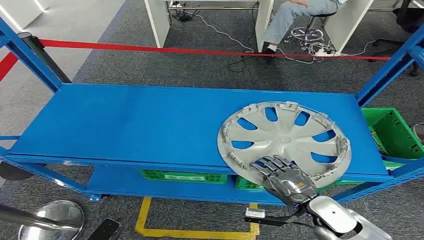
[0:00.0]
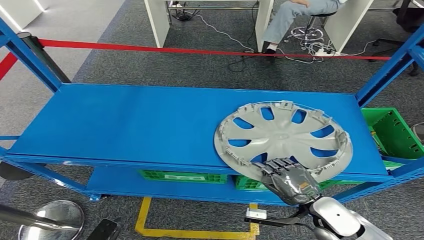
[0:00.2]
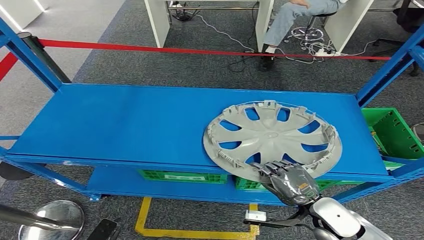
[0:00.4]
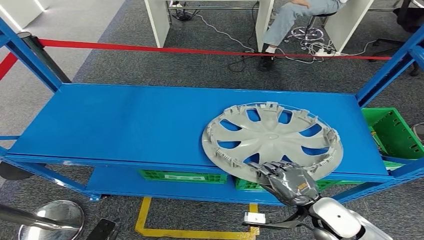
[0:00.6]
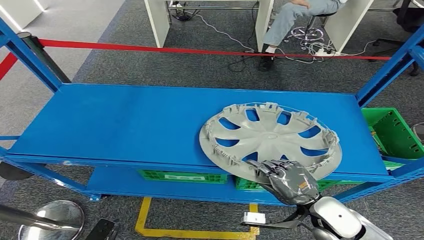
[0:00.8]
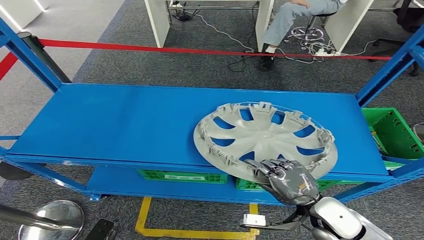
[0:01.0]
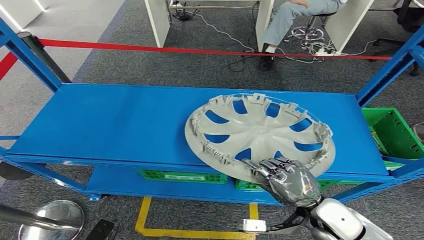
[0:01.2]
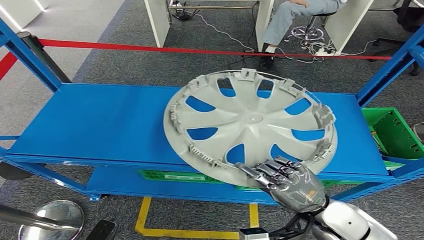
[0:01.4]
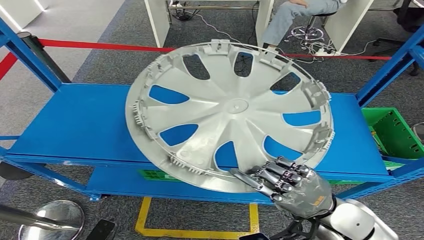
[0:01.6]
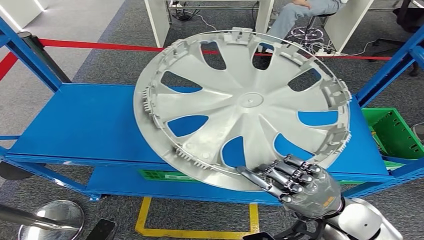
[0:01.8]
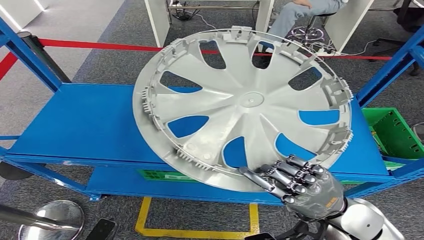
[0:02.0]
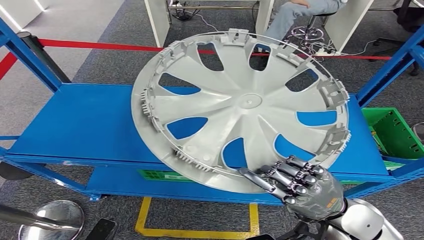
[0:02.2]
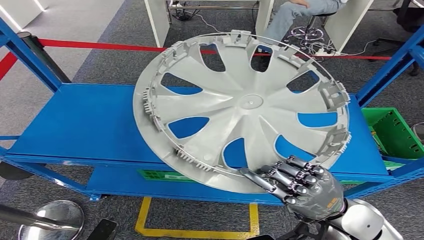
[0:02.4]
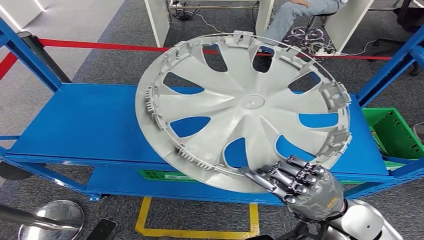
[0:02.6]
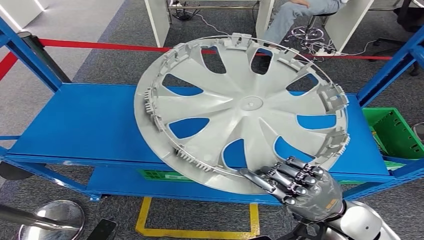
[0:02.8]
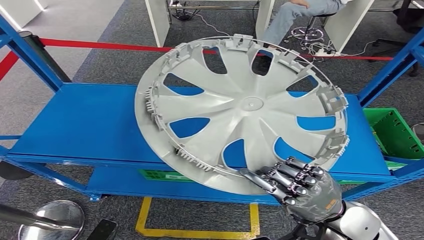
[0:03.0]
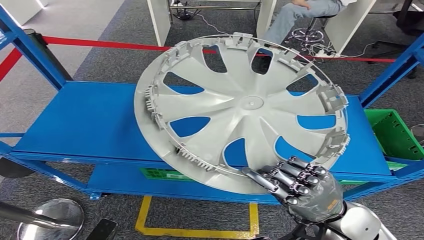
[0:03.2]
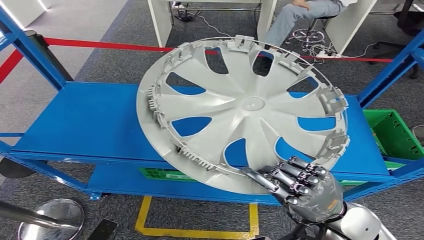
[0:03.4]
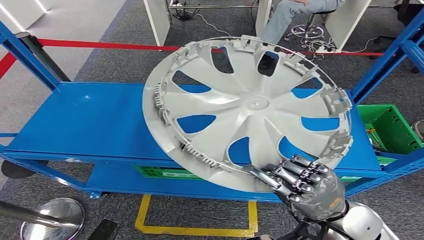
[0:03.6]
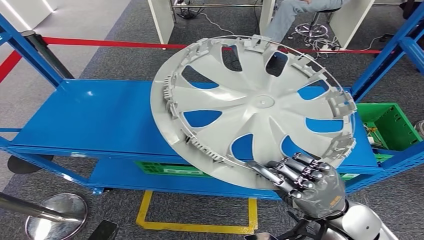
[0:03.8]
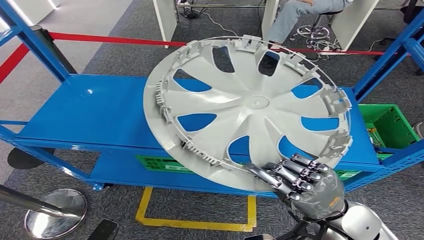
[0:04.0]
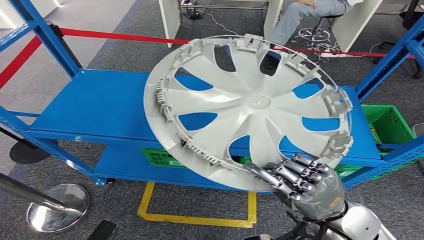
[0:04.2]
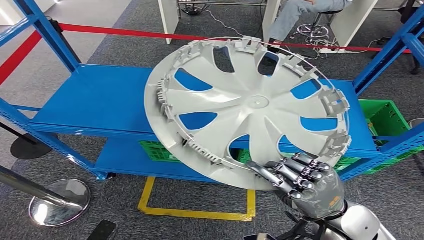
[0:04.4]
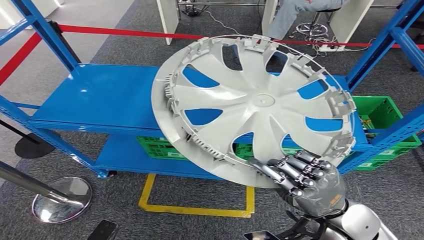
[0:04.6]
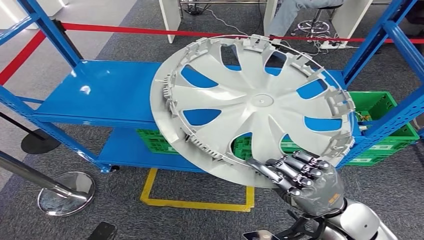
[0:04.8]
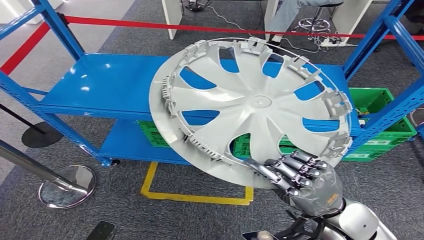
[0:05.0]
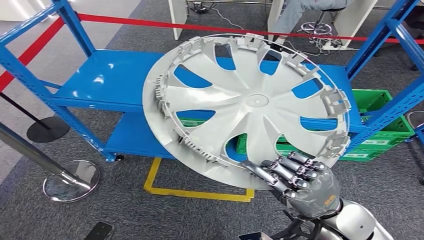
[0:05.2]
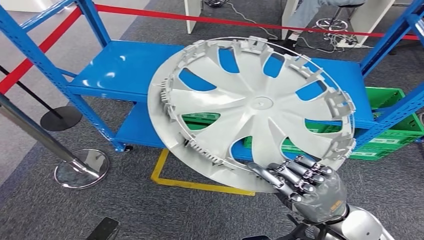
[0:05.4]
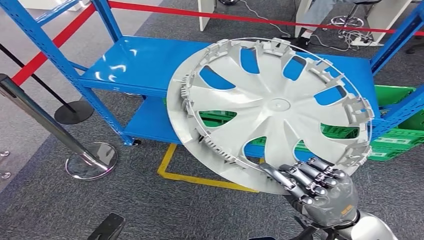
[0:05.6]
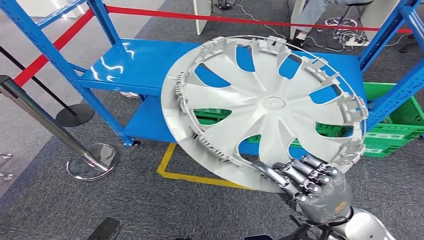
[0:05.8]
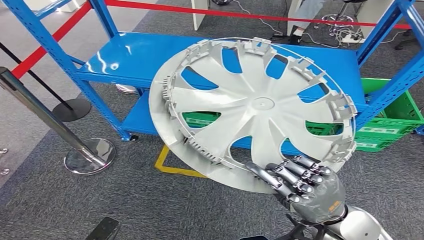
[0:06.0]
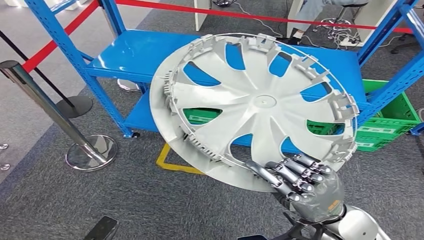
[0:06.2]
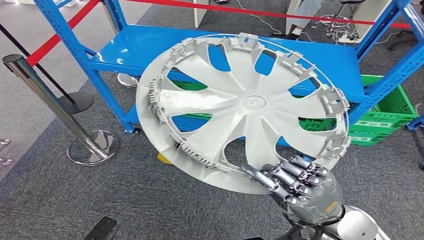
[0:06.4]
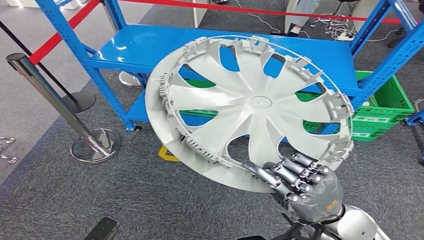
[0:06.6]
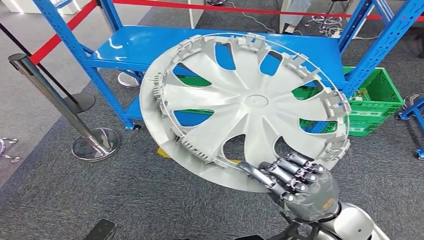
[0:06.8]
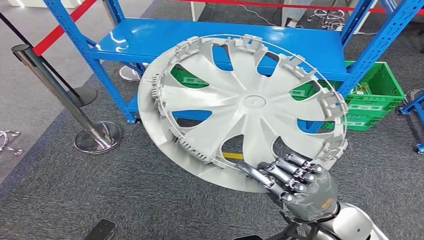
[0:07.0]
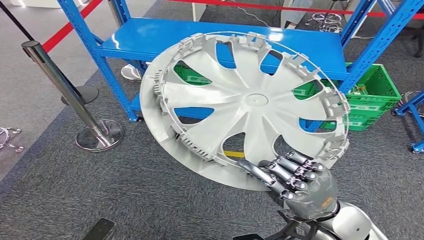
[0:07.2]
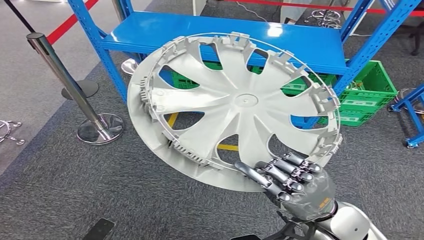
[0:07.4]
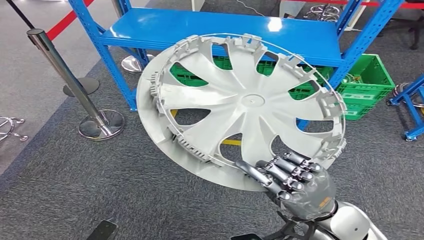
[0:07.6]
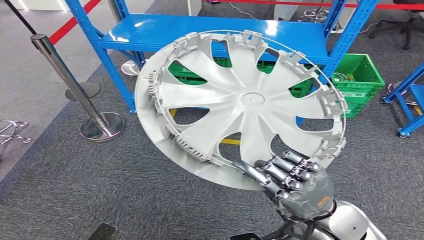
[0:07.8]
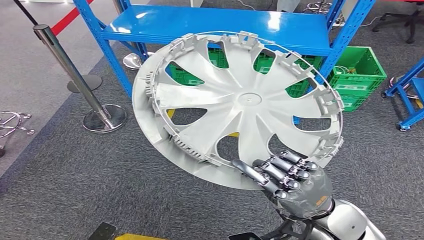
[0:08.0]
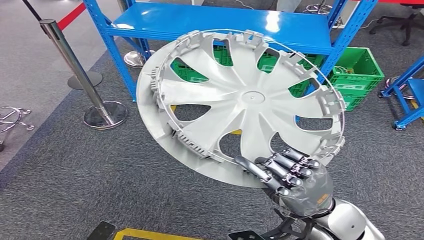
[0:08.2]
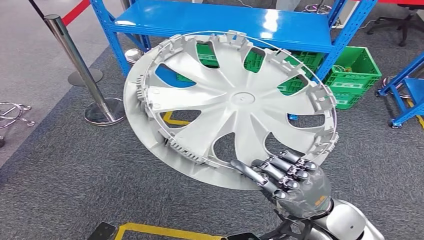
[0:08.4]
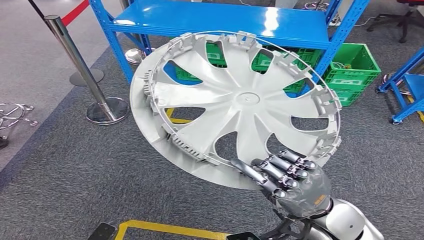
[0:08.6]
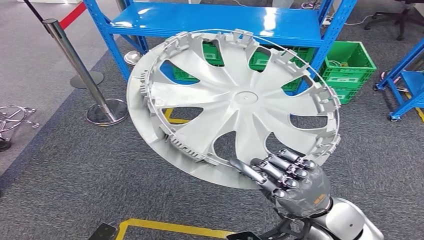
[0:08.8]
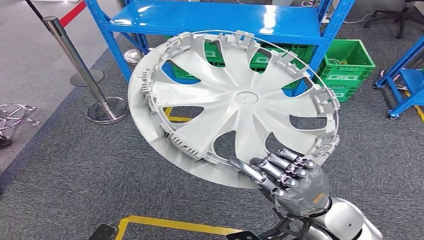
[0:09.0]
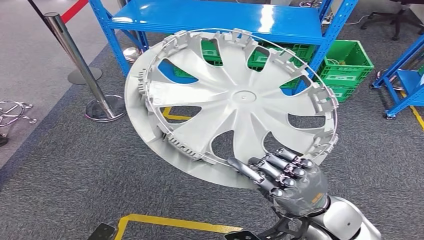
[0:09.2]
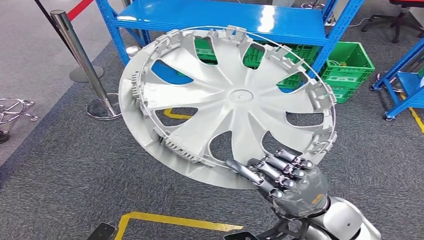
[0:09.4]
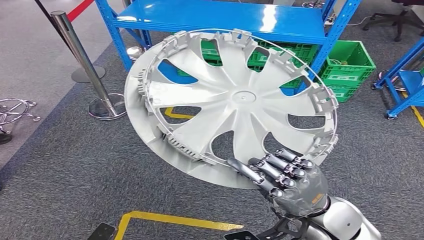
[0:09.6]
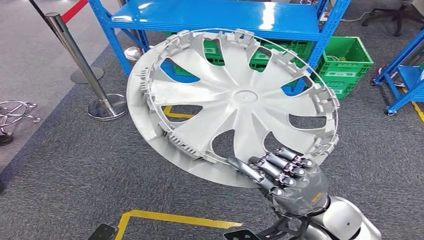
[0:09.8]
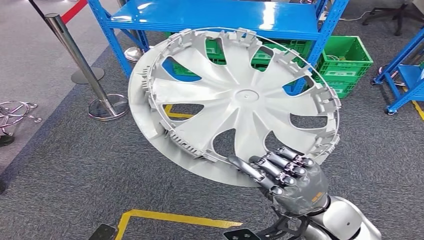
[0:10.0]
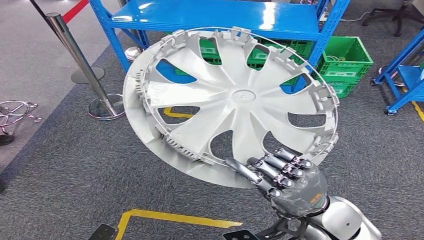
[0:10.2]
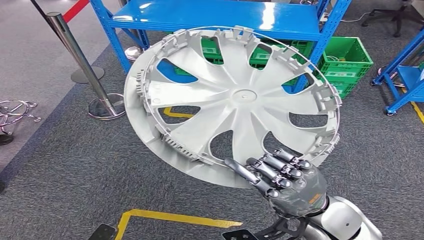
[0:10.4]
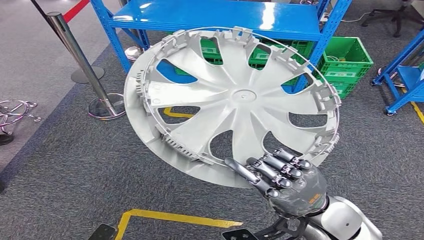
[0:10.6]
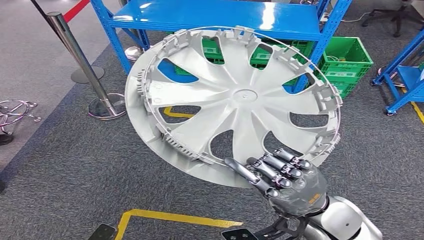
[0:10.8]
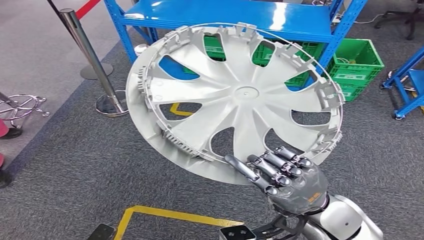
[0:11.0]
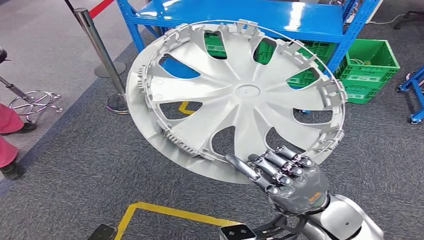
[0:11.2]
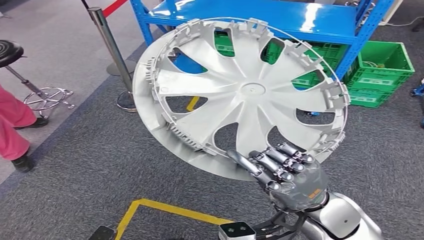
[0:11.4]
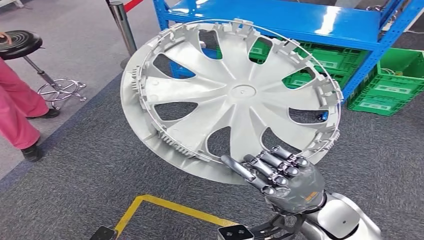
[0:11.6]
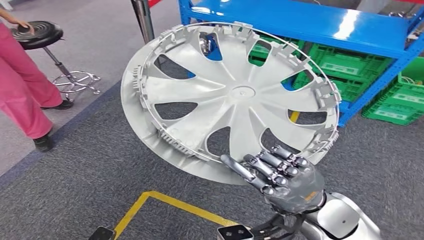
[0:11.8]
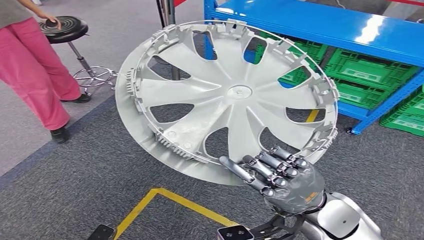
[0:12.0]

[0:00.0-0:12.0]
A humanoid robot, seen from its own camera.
Step, 0:00.0 to 0:02.2: Pick up the small component from the shelf.

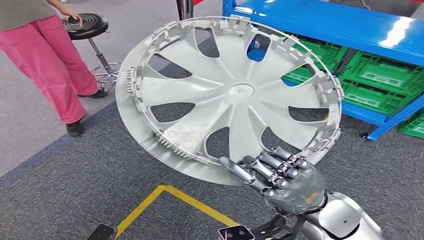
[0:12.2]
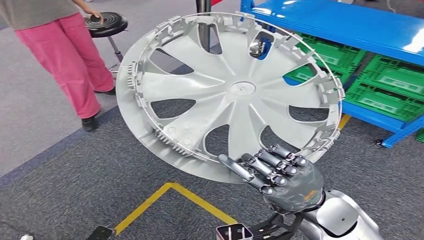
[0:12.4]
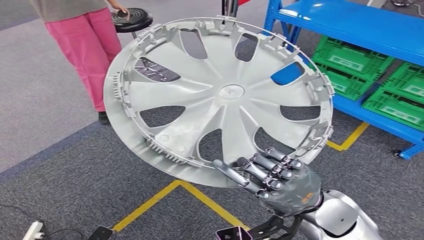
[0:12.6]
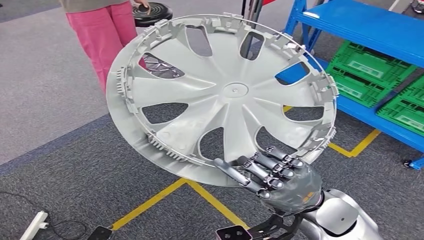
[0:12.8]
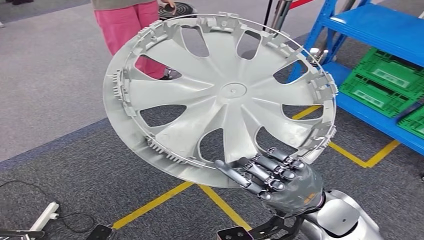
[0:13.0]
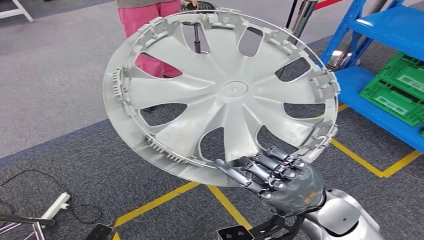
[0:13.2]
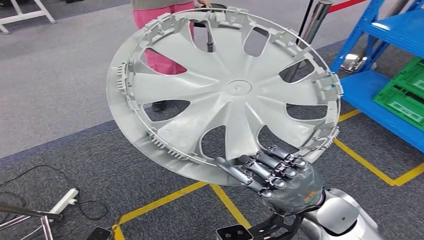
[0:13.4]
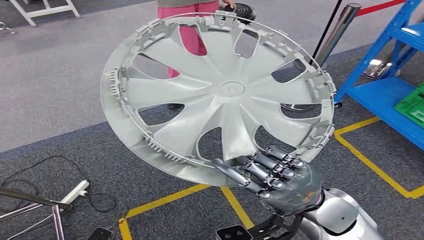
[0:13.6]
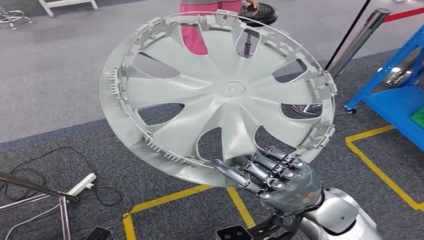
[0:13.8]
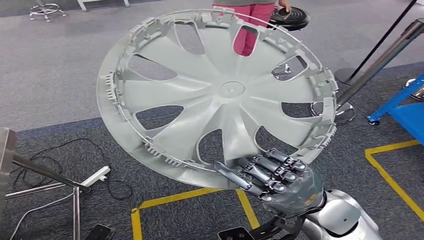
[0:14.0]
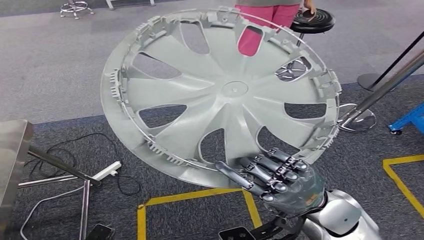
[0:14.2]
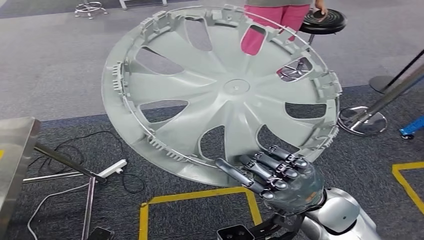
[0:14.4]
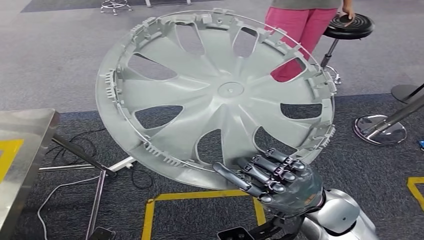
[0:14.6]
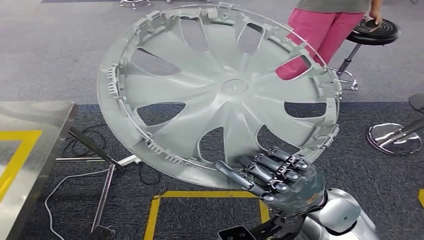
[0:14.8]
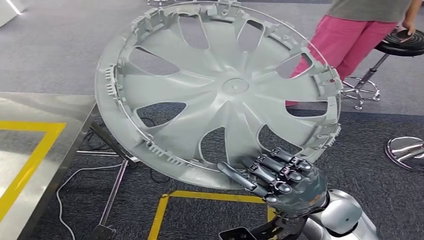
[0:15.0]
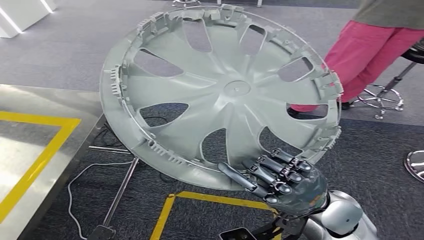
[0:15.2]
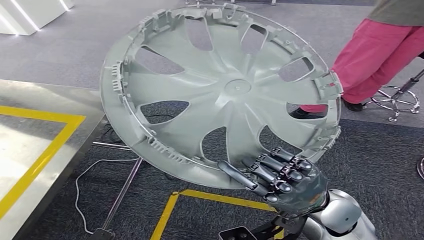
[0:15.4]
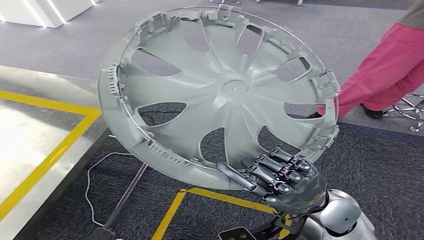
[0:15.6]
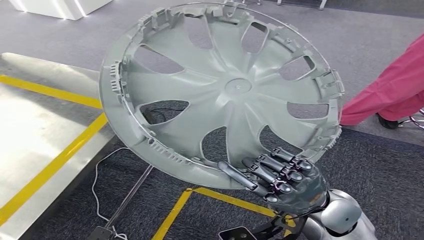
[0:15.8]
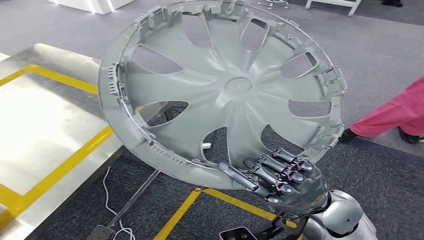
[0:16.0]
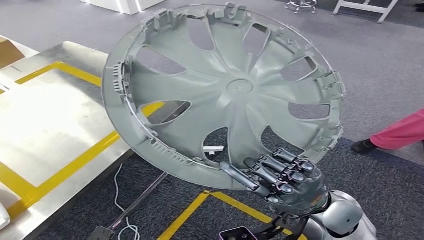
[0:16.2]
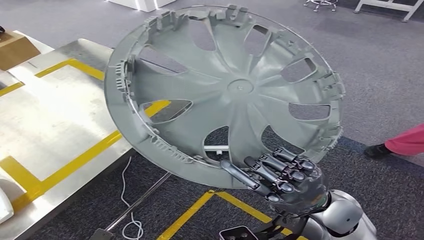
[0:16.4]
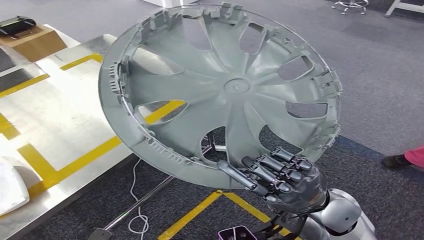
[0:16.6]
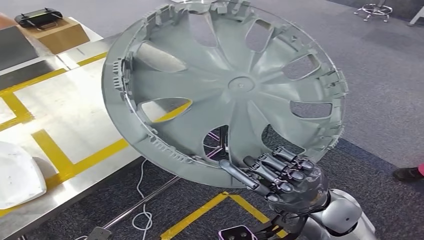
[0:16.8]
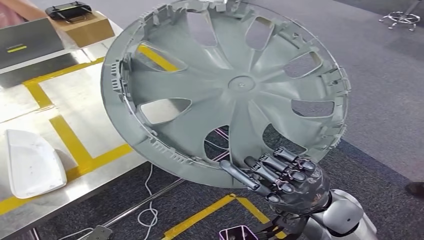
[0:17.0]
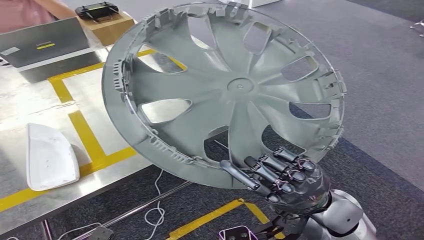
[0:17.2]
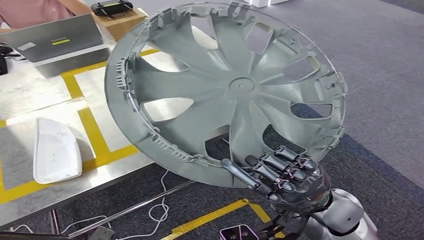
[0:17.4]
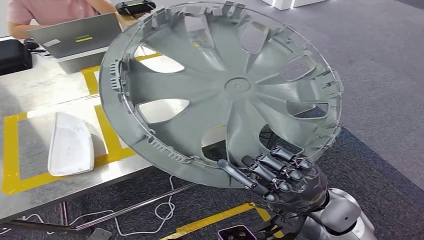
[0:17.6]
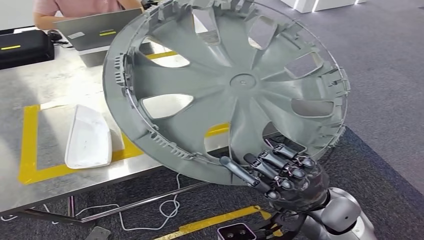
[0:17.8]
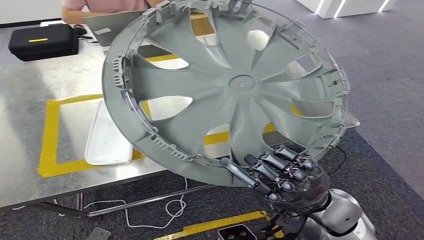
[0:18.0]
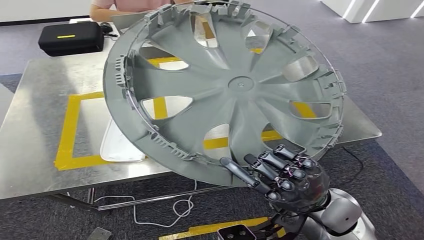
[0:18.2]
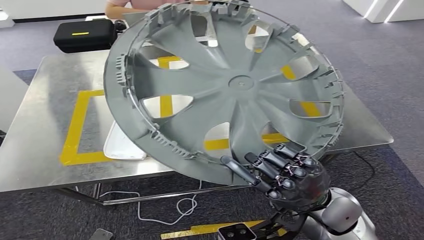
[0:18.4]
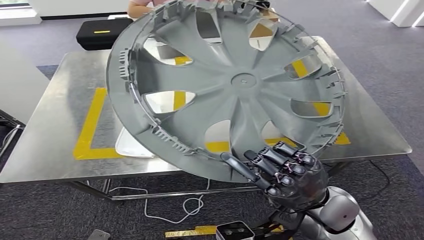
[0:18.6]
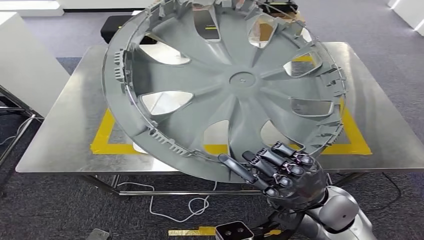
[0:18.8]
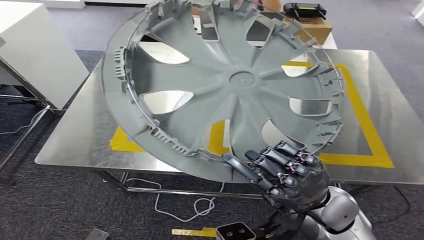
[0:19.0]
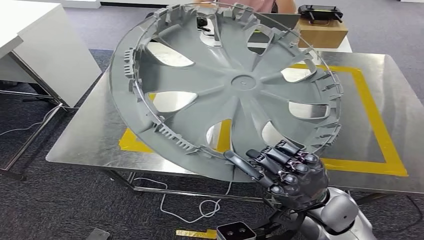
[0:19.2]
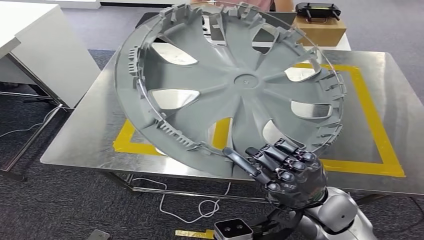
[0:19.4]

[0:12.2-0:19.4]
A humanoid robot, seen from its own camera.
Step, 0:12.2 to 0:19.2: Move the small component to the workbench.
